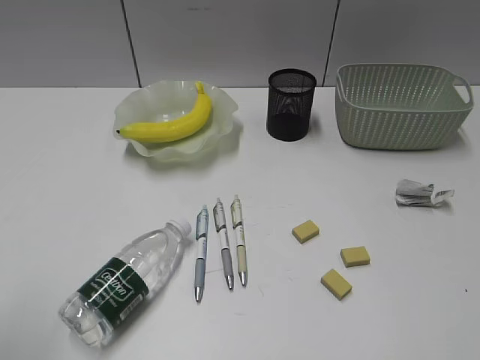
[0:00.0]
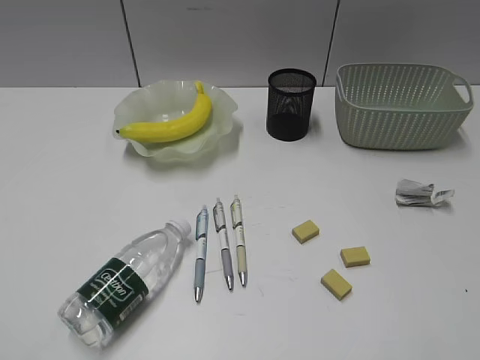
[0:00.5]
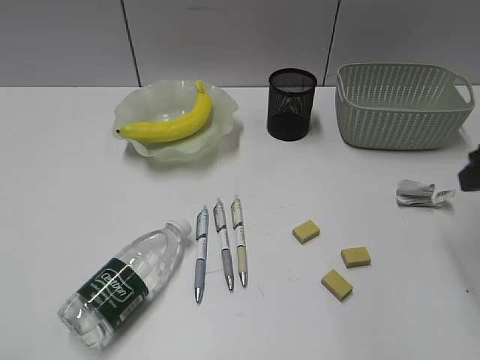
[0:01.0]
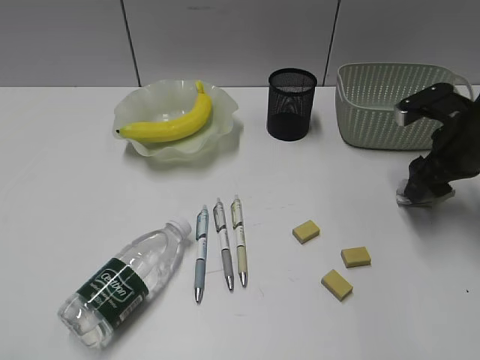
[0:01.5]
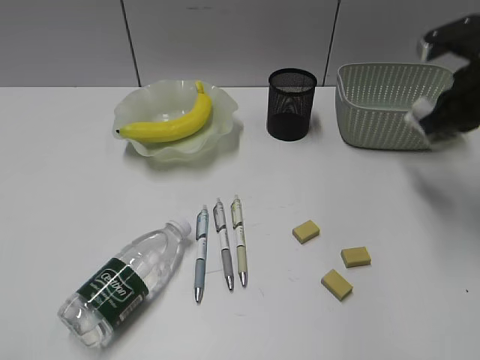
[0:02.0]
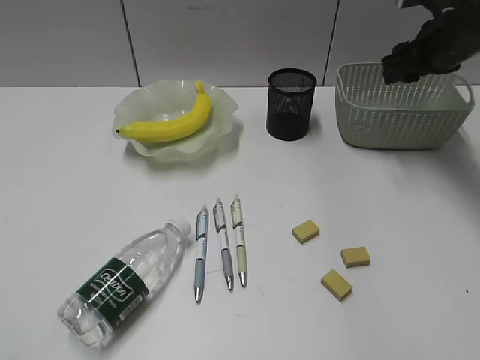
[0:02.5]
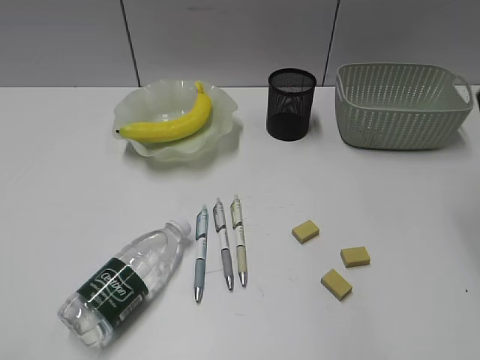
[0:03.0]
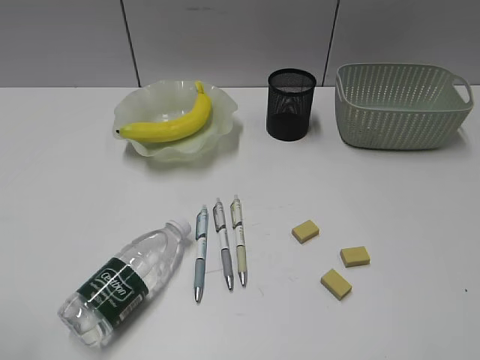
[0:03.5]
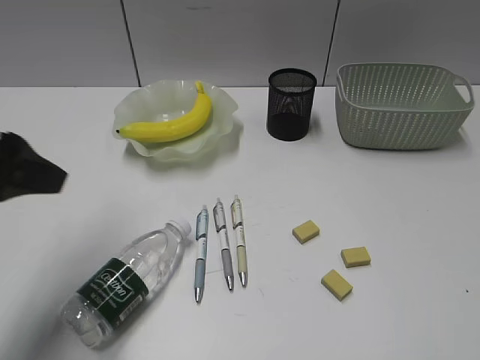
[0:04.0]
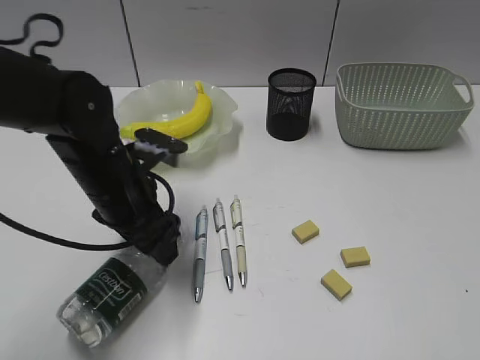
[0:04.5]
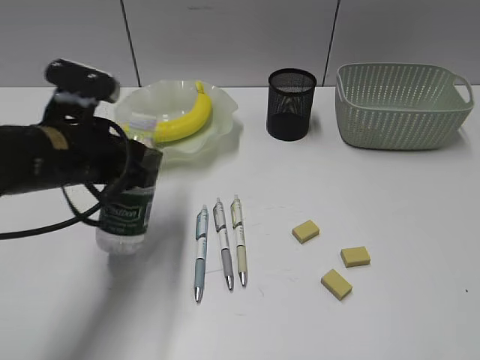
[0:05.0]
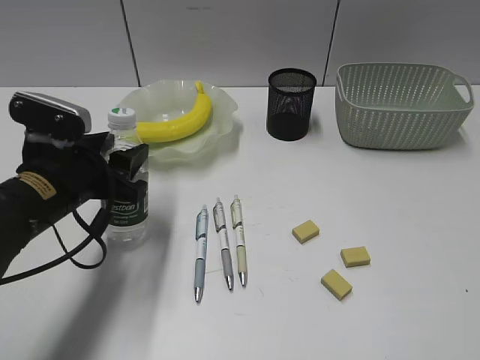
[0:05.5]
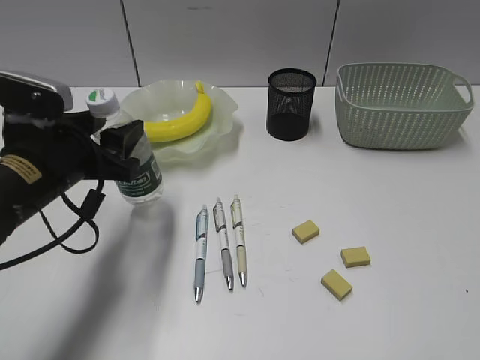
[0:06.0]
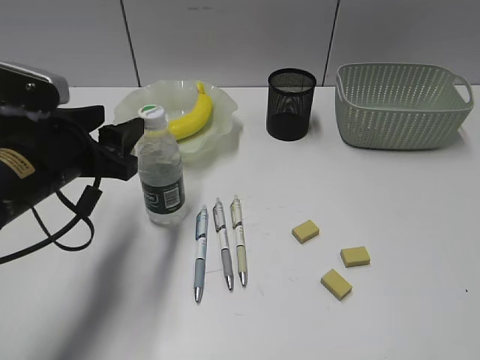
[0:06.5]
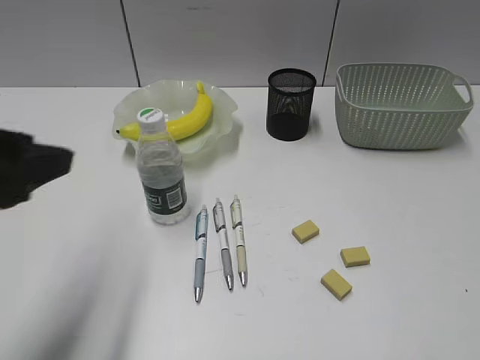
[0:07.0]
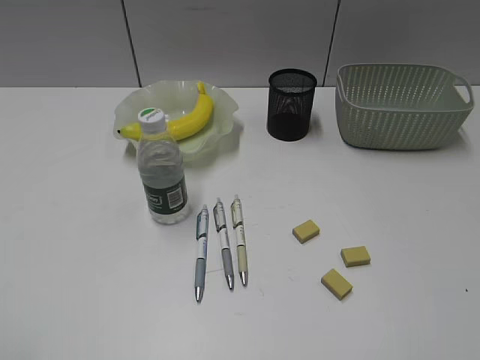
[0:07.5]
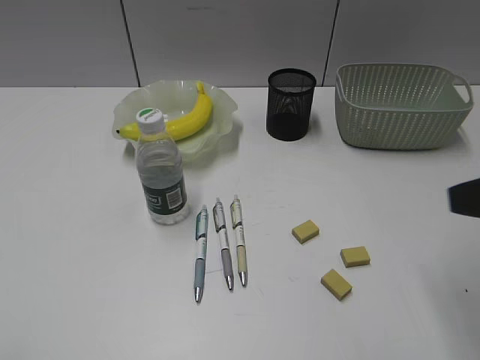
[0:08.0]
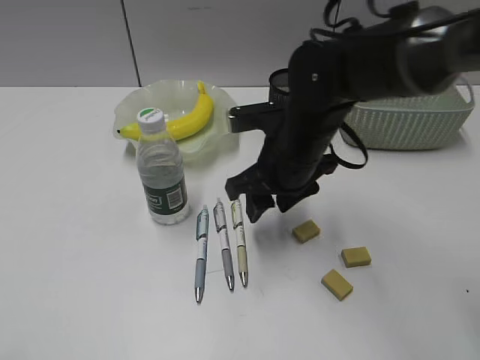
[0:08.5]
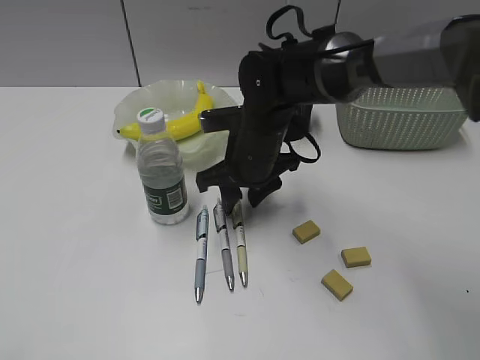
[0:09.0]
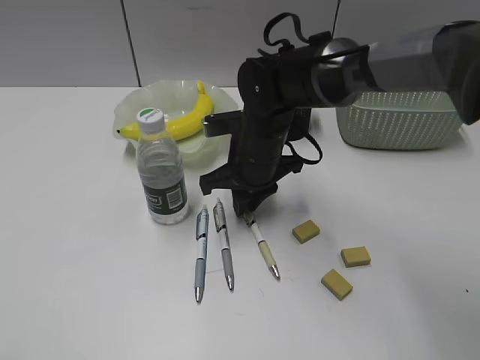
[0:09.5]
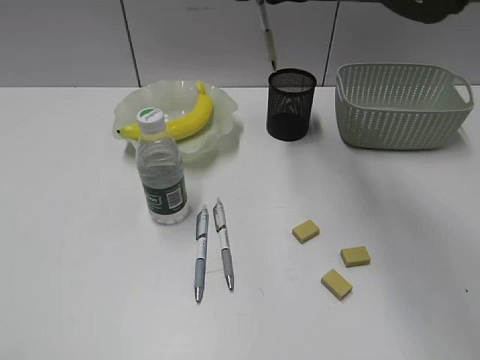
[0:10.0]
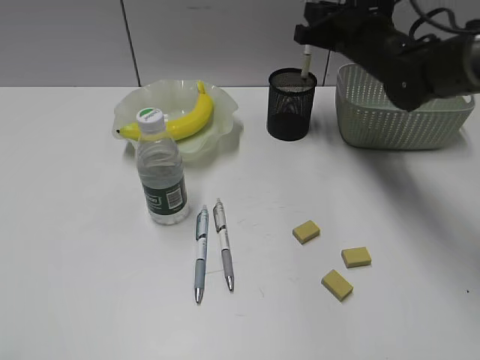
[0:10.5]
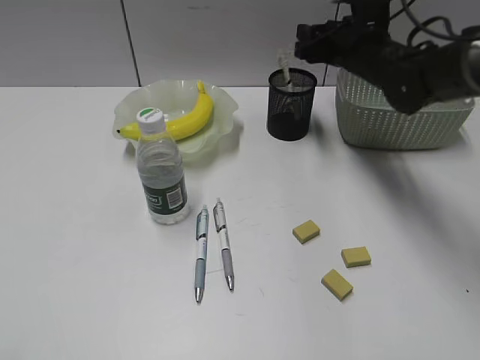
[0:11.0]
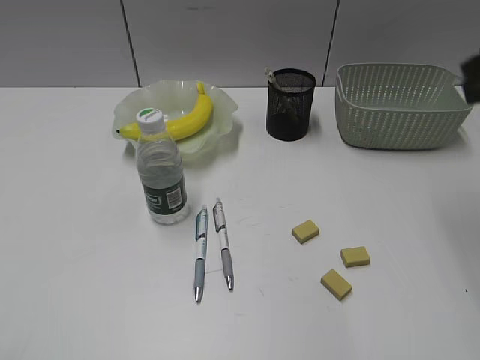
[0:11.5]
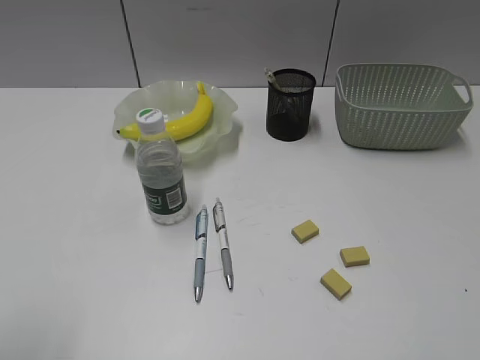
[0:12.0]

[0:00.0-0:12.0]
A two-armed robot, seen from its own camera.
Step, 0.0 to 1.5 s: Grasp the waste paper with right gripper.
Step, 2.0 to 2.5 s: Place the waste paper in the basket with right gripper.
Step, 3.0 to 4.5 s: Grasp the bottle with left gripper.
Step, 5.0 to 6.0 s: Stand the bottle with left gripper.
Step, 6.5 to 9.0 s: Grasp the yellow pen with right gripper.
Step, 9.5 to 11.0 s: Place the yellow pen in pen holder with right gripper.
0.0 to 2.0 s: The right gripper goes about 35 cm forward, and closes.
2.0 to 4.0 s: The left gripper travels forward by some 20 cm, and opens its fingers. Meanwhile the right gripper heads backward, covering some 35 cm, and opens its fingers.
4.0 to 6.0 s: The left gripper heads downward, to the right and forward, covering roughly 15 cm.
6.0 to 8.0 s: The left gripper travels backward, to the left and upward by about 30 cm. Meanwhile the right gripper heads forward, covering approximately 15 cm.
8.0 to 10.0 s: The right gripper shifts roughly 30 cm forward and to the left, and closes up.
10.0 to 12.0 s: The right gripper heads backward and to the right, covering some 40 cm, and opens, while the left gripper changes place by approximately 5 cm.

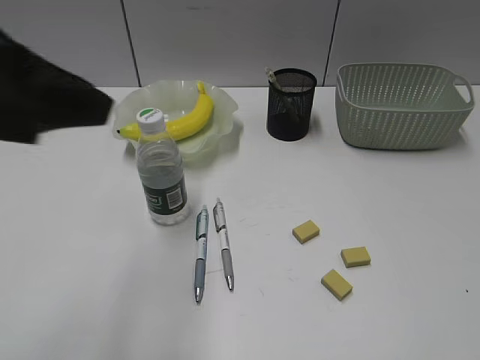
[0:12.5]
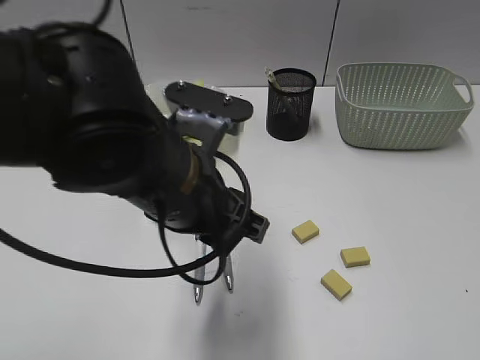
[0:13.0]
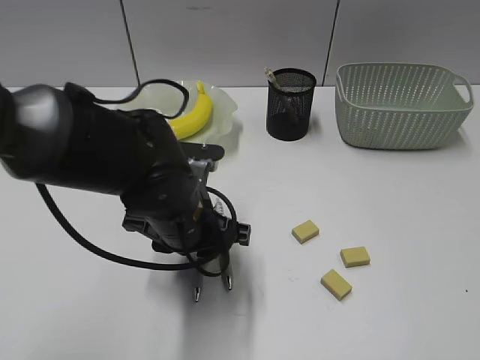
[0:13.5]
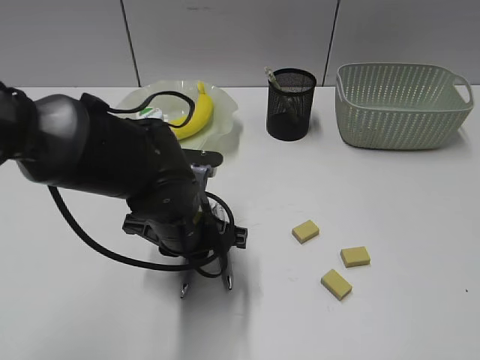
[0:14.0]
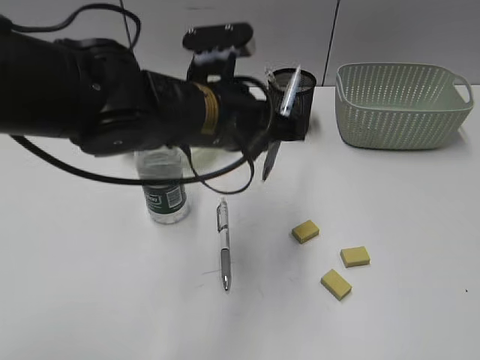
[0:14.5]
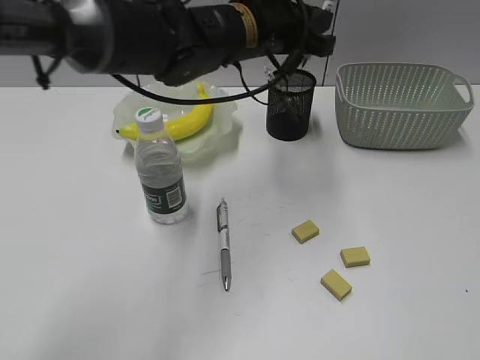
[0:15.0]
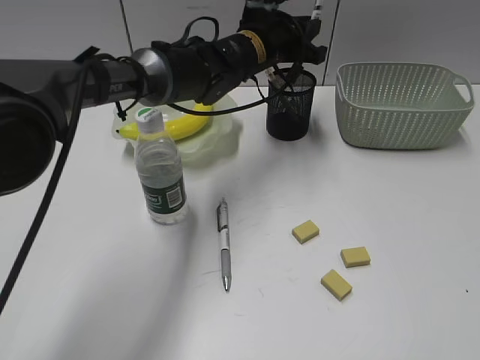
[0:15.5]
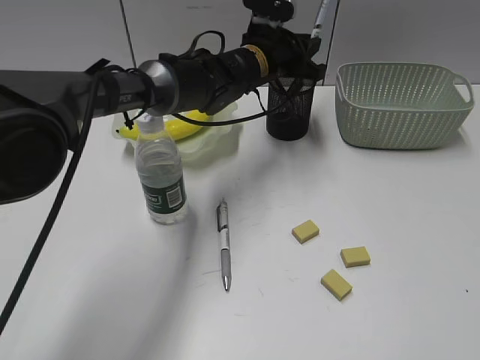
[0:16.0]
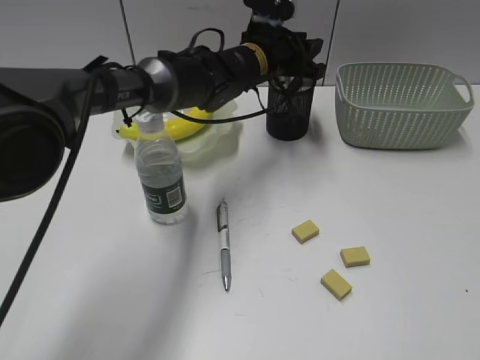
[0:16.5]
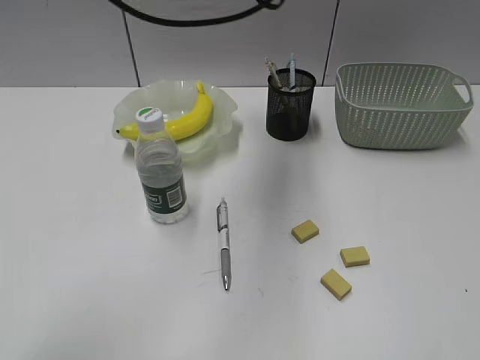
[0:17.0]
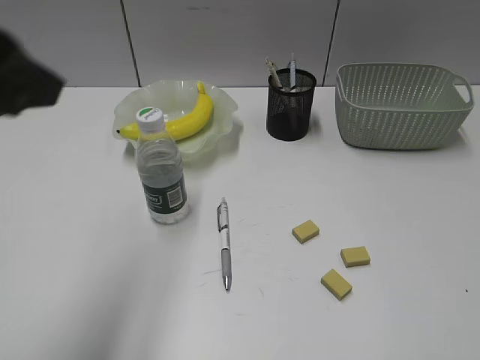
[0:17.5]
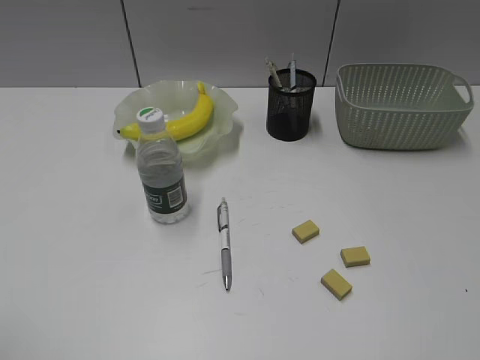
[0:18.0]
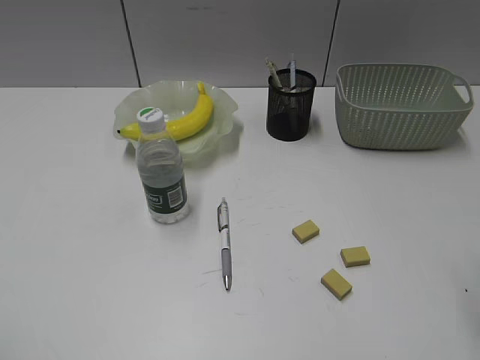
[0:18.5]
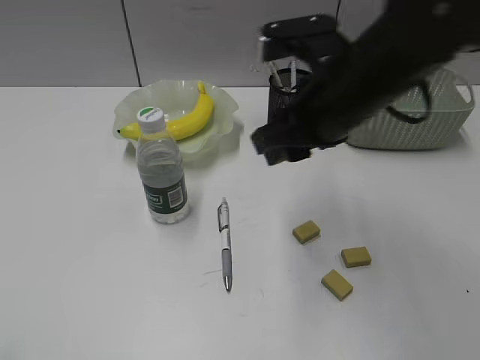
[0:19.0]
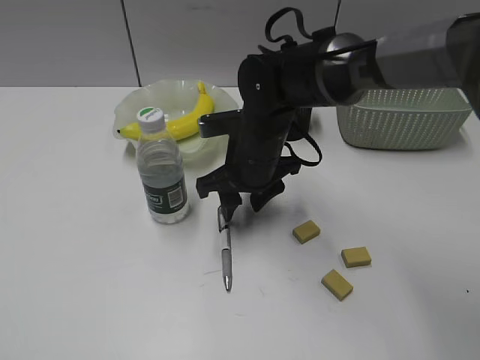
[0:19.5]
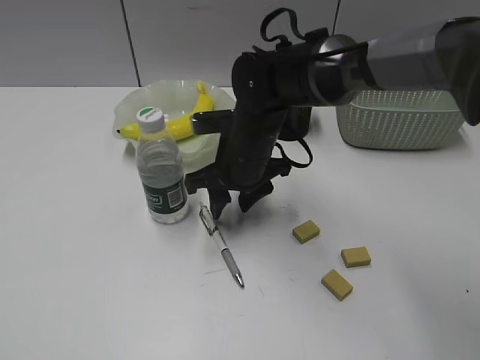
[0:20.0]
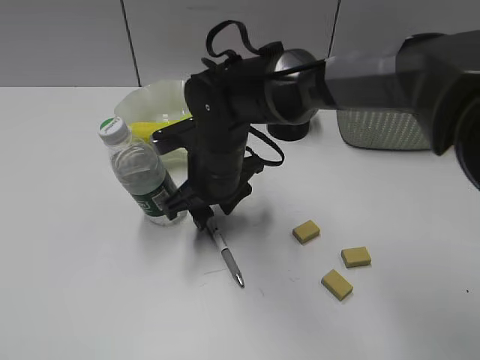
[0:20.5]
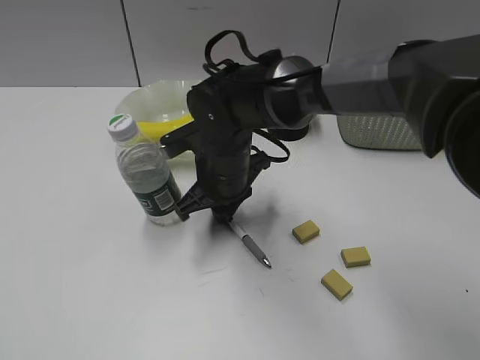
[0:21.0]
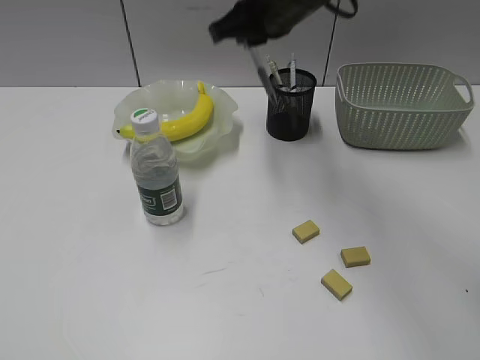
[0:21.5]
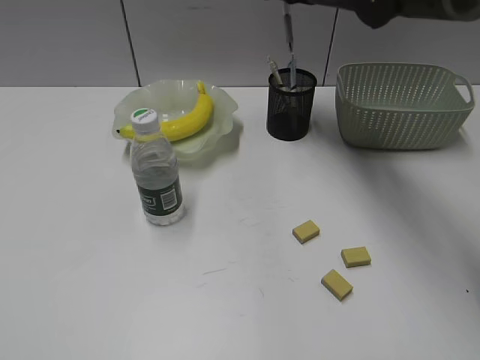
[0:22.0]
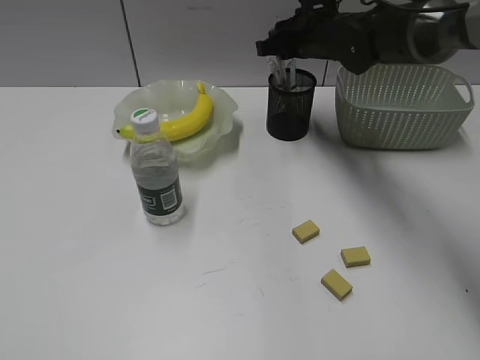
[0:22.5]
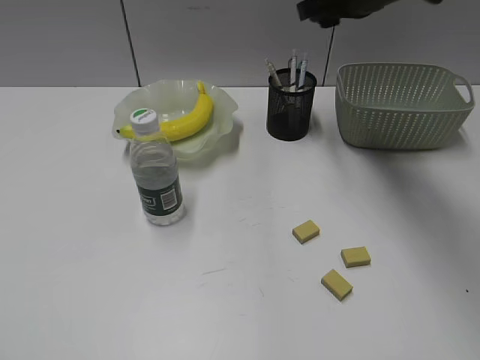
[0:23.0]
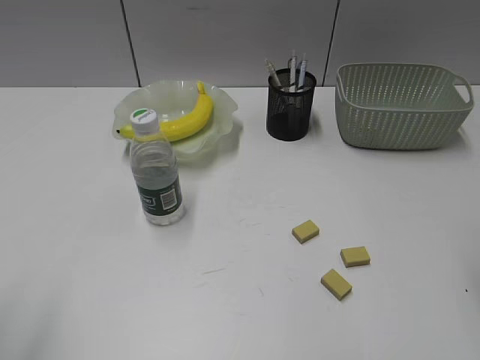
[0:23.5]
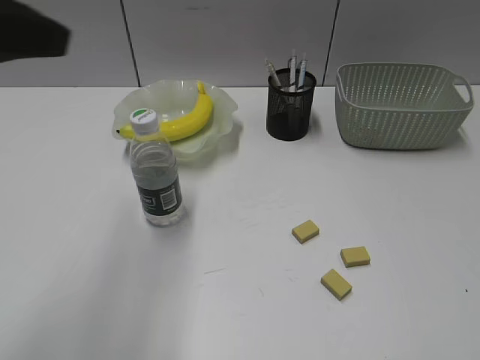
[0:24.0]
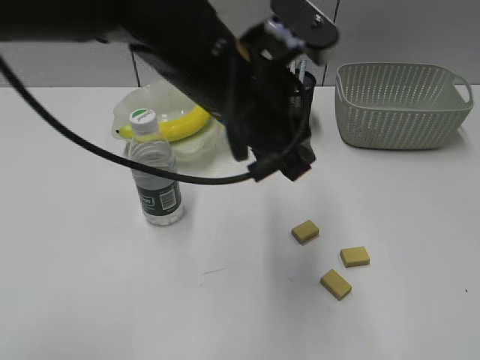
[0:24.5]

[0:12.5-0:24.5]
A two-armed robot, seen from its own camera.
Step, 12.5 to 14.0 s: Grasp the blue pen with left gripper.
Step, 14.5 to 16.5 s: Place the blue pen in pen holder with left gripper.
Step, 17.0 to 20.5 s: Grasp the gray pen with right gripper.
Step, 21.0 to 22.5 s: Place the gray pen in pen holder with right gripper.
12.5 to 14.5 s: The left gripper shifts about 25 cm to the right, downward and forward.
14.5 to 16.5 s: The left gripper heads forward, covering approximately 20 cm, and opens.
16.5 to 18.5 s: The left gripper travels backward and to the left by some 60 cm, and opens up, while the right gripper shifts approximately 10 cm forward and to the left.
18.5 to 20.5 s: The right gripper is displaced to the left, forward and downward by about 40 cm.
20.5 to 22.5 s: The right gripper heads forward, to the right and upward, covering some 20 cm, and closes.
22.5 to 24.5 s: The left gripper heads to the right and forward, covering roughly 40 cm. The right gripper goes approximately 50 cm backward and to the right.

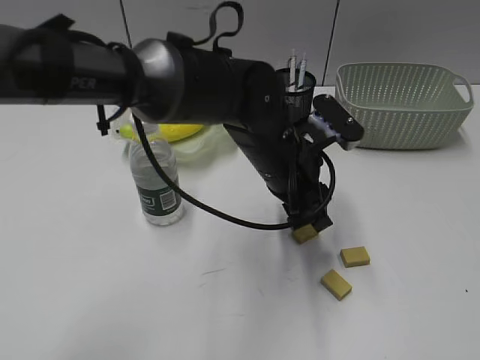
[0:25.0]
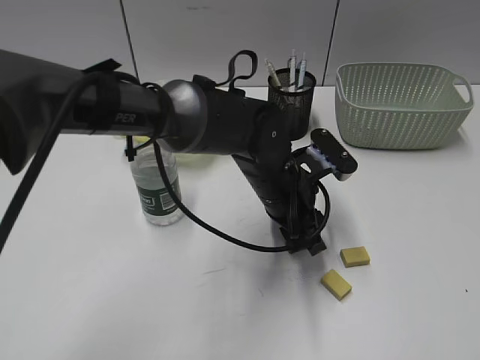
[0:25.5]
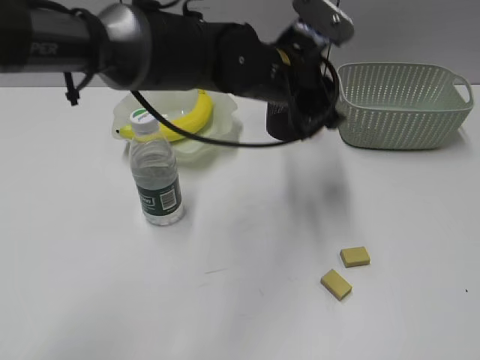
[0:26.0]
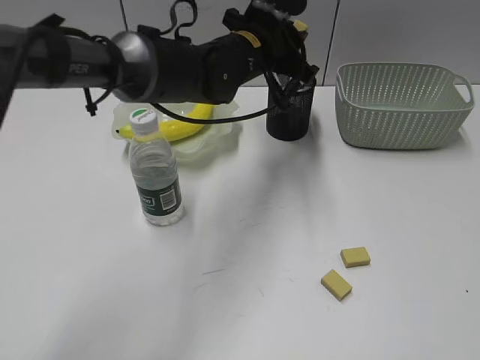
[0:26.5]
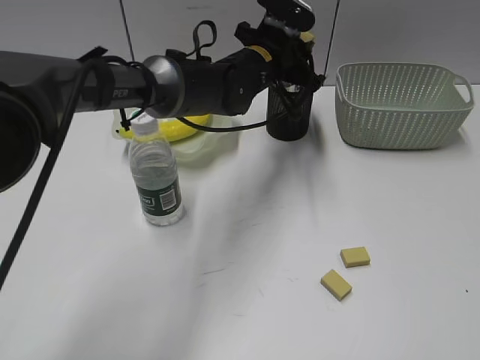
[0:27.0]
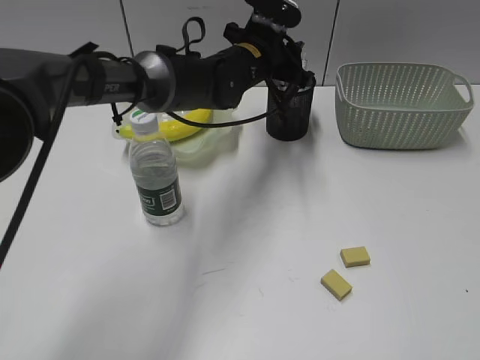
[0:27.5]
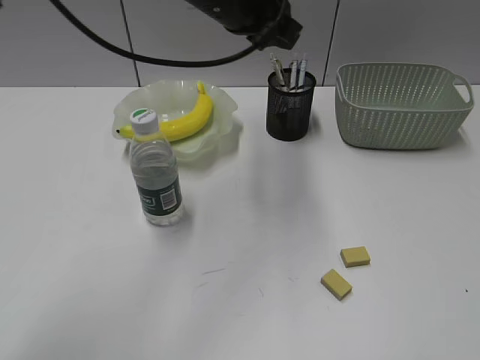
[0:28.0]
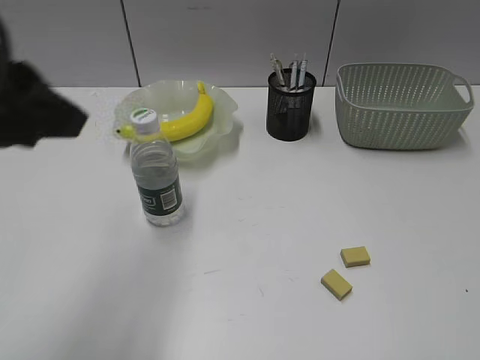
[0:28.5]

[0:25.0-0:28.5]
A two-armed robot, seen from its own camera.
Step, 26.0 to 27.5 s: Place the eraser in pen holder with left gripper.
25.0 to 27.0 s: The left gripper is displaced forward by about 15 cm.
27.0 to 28.5 s: The left gripper travels backward, to the left and upward by approximately 35 cm.
